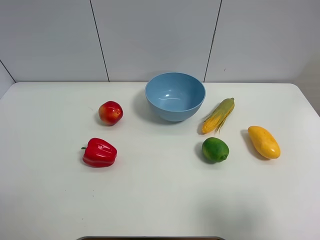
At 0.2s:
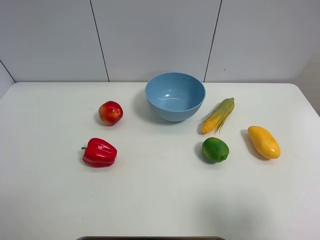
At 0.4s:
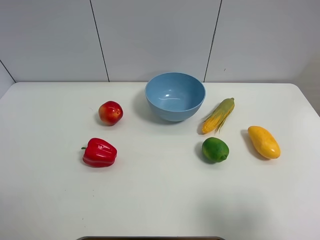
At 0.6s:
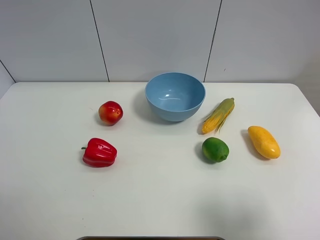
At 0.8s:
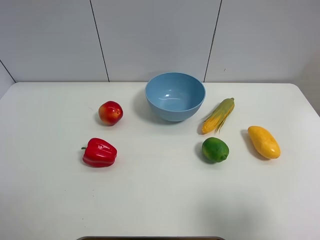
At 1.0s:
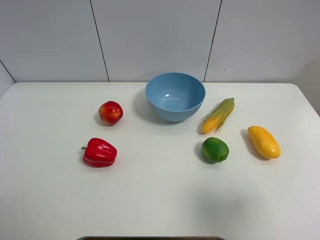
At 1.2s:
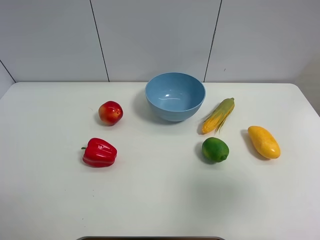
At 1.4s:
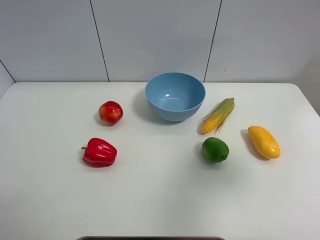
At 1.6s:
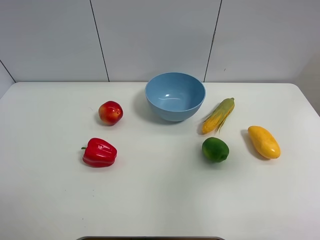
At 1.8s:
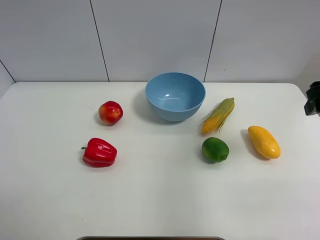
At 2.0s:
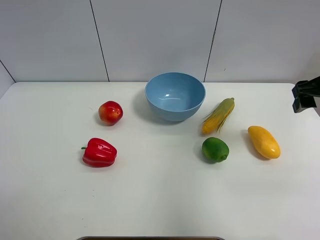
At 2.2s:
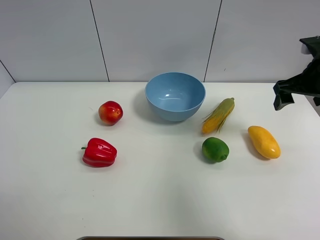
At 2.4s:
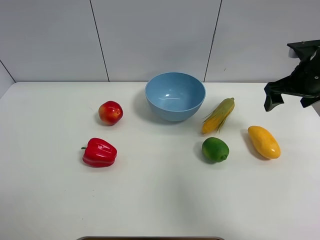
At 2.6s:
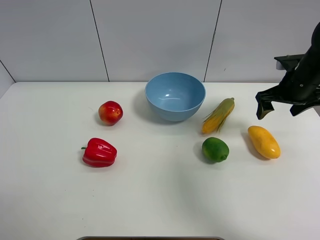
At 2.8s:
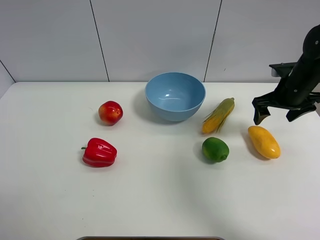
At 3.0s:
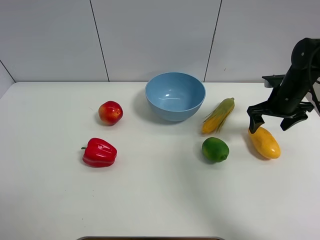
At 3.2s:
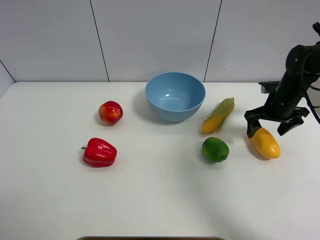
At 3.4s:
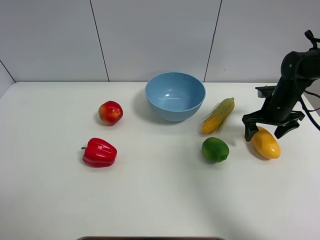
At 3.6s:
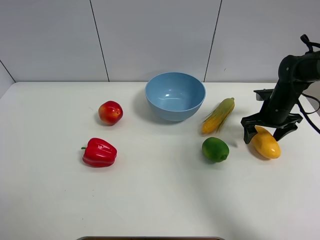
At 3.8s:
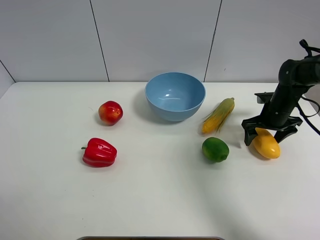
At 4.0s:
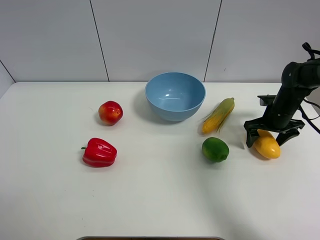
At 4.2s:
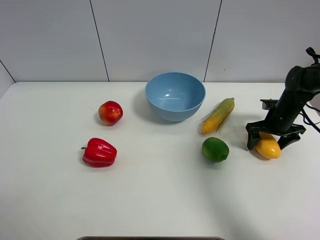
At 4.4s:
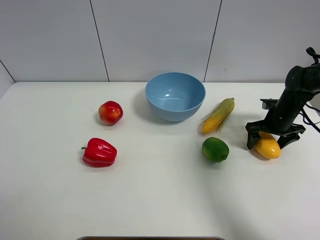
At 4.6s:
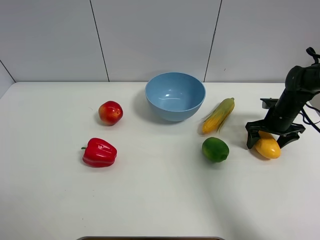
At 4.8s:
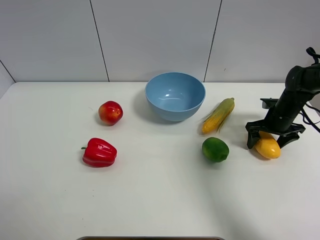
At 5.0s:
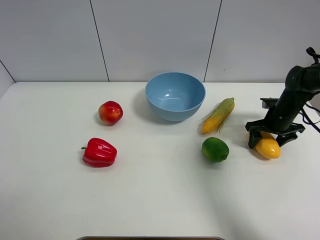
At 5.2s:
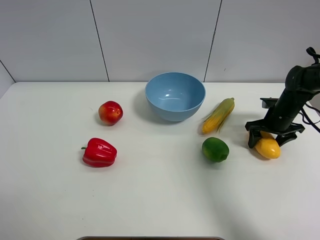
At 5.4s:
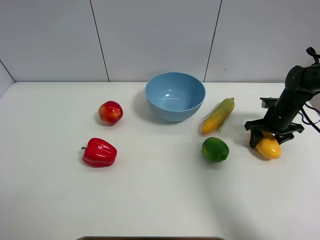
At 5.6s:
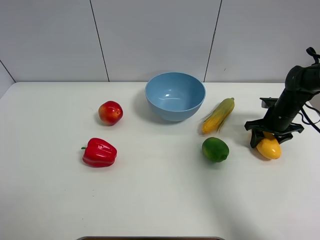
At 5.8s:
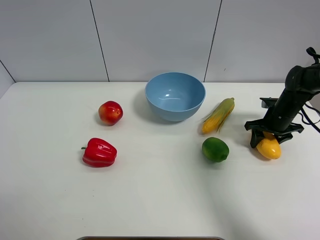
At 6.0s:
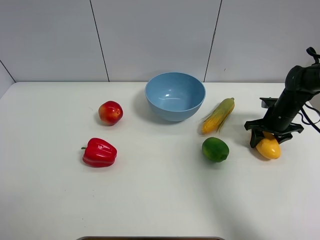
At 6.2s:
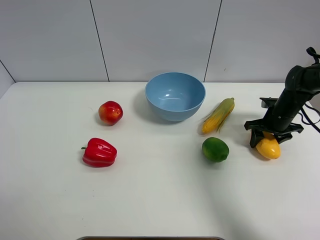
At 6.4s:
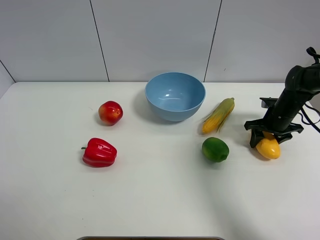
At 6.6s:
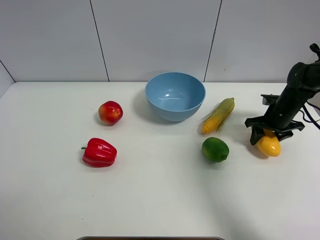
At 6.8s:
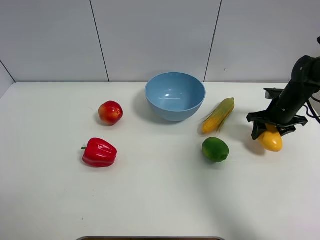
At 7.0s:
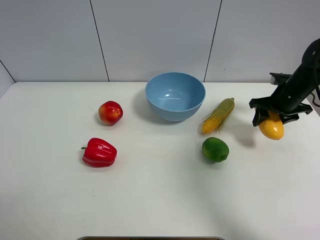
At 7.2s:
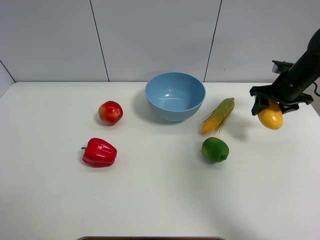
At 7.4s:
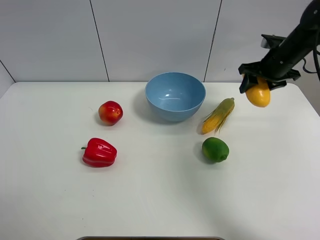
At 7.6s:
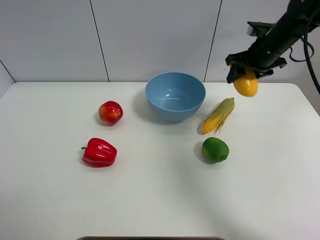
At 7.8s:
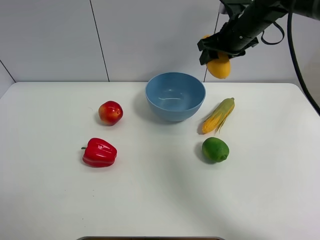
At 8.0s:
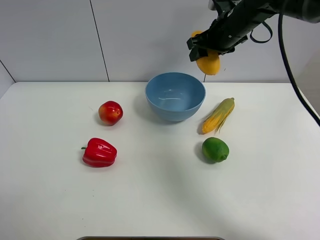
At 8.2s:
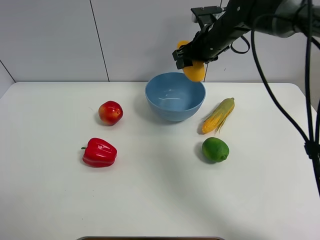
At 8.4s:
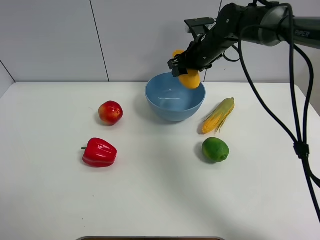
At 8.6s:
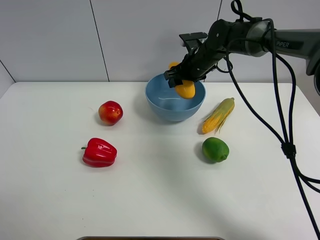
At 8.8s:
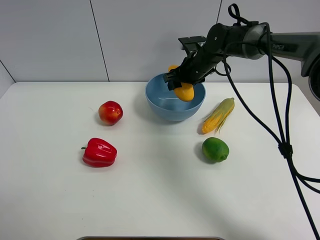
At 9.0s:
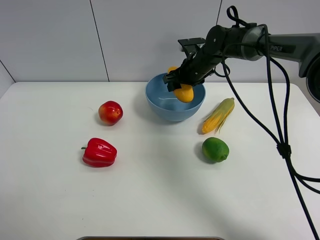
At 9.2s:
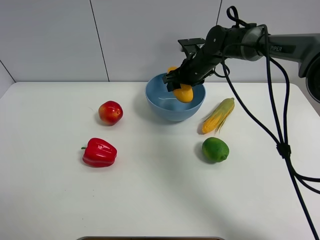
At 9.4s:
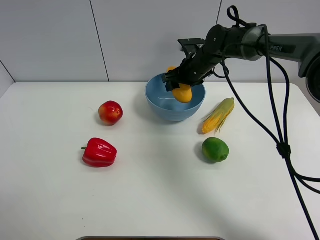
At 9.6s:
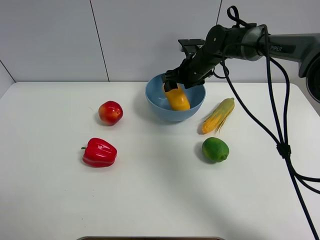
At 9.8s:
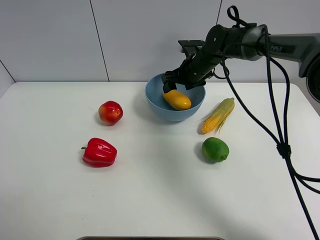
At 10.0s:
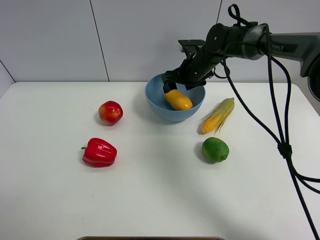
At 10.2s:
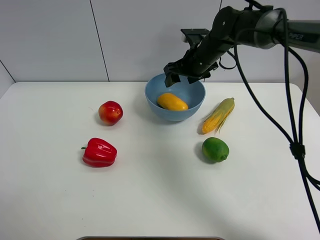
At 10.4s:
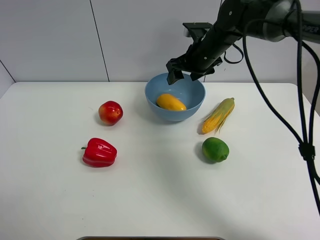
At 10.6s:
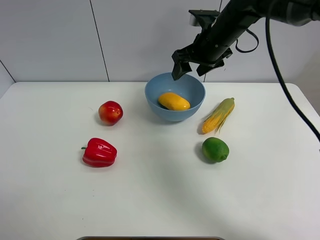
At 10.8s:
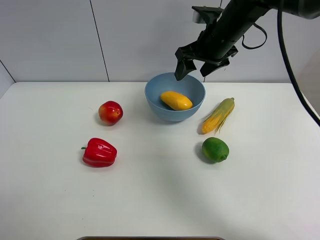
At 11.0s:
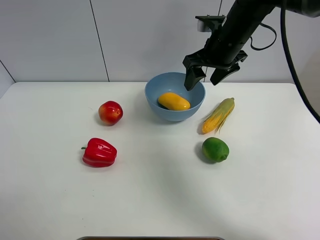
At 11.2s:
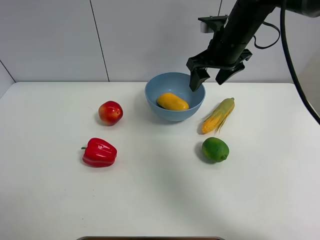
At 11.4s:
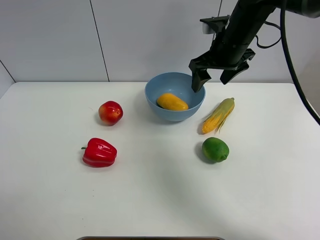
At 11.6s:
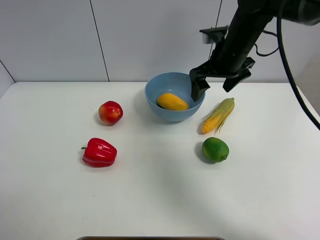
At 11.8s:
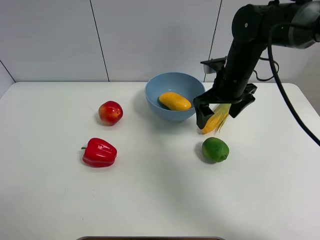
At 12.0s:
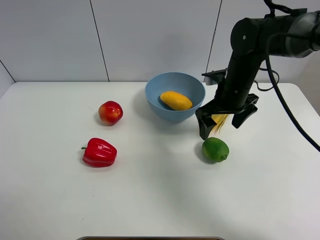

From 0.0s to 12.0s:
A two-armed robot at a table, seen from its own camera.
Task of the whole recording: Put the three fruits on the table into a bowl.
Step, from 0.0s to 5.6s: Grasp the mango with right gripper.
Step, from 5.8s to 9.6s: Place the mango in the blue bowl with right gripper.
From 0.0s to 1.6s: The right gripper heads forward, covering approximately 15 cm.
From 1.6s to 3.0s: The right gripper travels forward and downward by some 25 cm.
From 3.0s to 4.4s: The right gripper is displaced downward by about 5 cm.
From 4.4s to 6.0s: The right gripper closes up.
From 6.0s to 7.6s: The right gripper is displaced upward and to the left by about 20 cm.
From 7.6s to 9.0s: The right gripper is displaced to the left and downward by roughly 15 cm.
From 9.0s to 10.4s: The right gripper moves upward, some 5 cm, and opens its fingers.
From 10.4s to 12.0s: The right gripper is displaced backward by about 10 cm, and opens up.

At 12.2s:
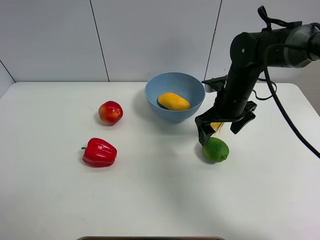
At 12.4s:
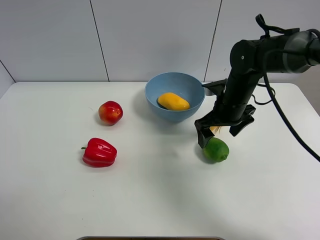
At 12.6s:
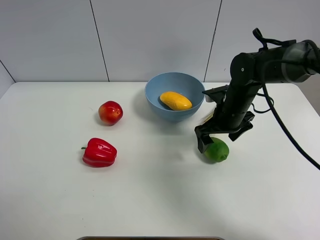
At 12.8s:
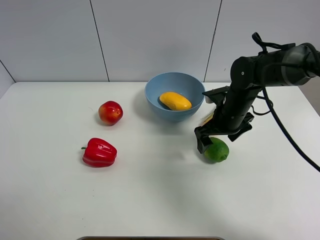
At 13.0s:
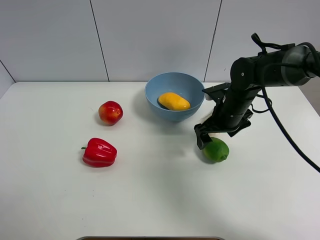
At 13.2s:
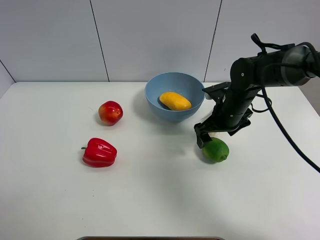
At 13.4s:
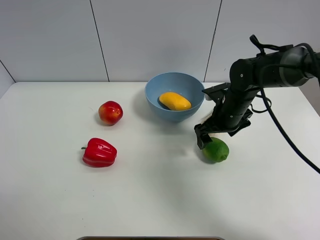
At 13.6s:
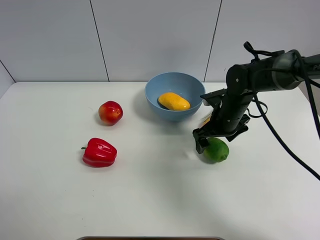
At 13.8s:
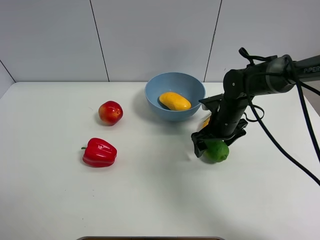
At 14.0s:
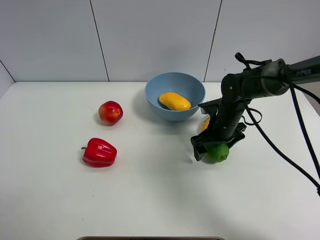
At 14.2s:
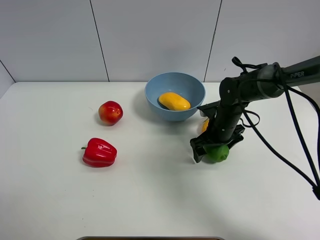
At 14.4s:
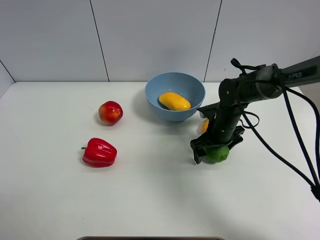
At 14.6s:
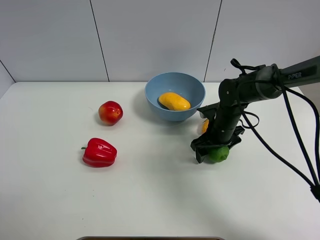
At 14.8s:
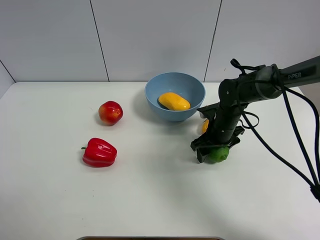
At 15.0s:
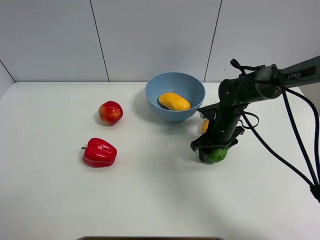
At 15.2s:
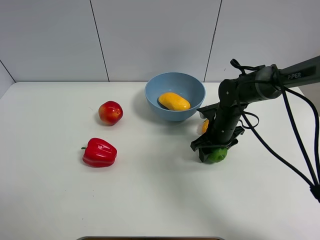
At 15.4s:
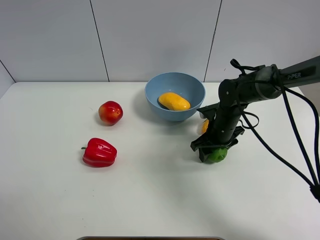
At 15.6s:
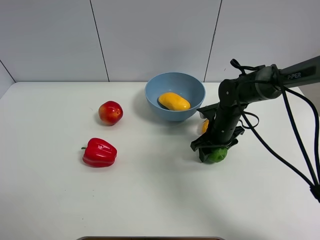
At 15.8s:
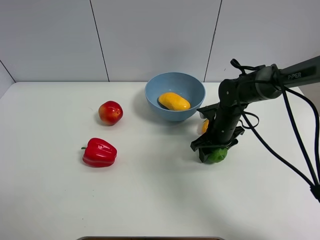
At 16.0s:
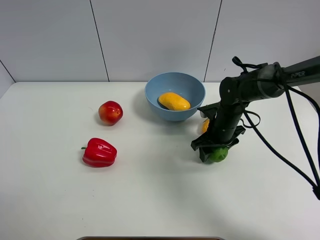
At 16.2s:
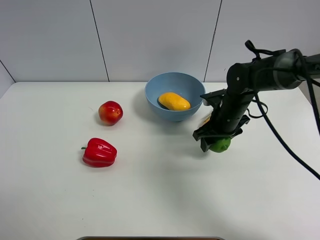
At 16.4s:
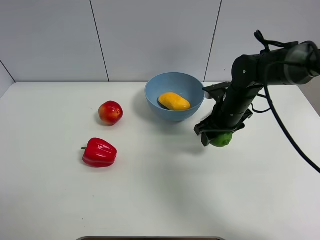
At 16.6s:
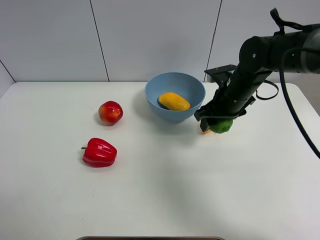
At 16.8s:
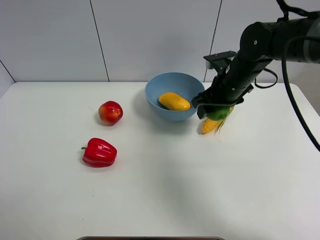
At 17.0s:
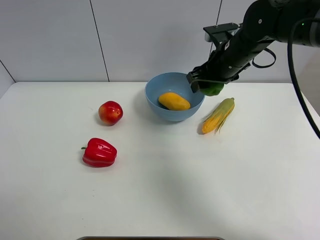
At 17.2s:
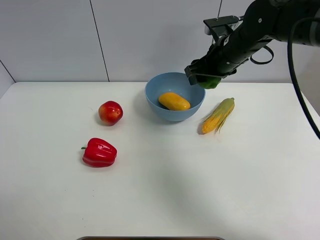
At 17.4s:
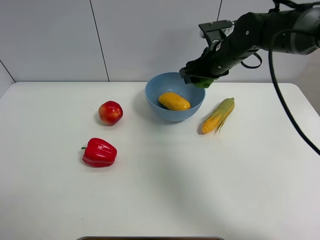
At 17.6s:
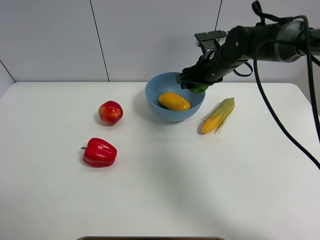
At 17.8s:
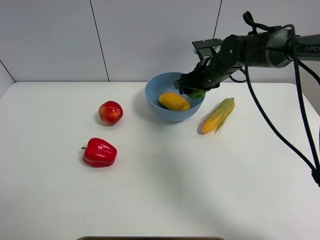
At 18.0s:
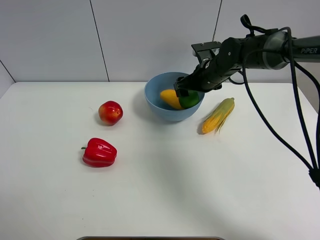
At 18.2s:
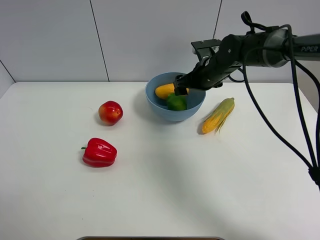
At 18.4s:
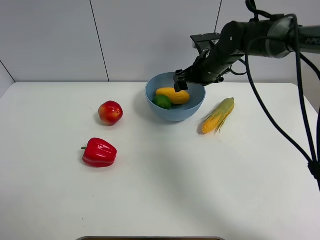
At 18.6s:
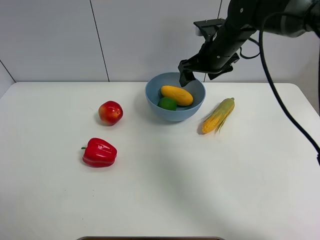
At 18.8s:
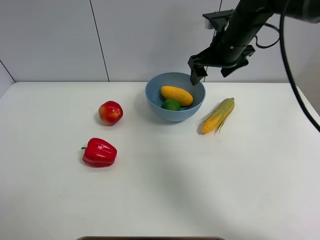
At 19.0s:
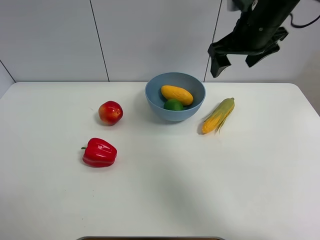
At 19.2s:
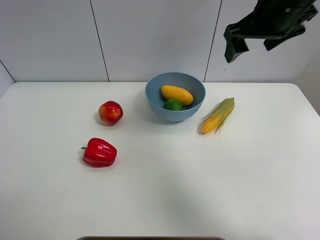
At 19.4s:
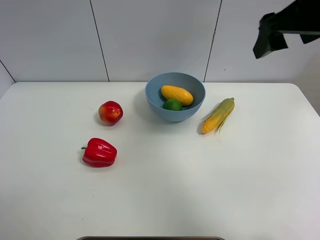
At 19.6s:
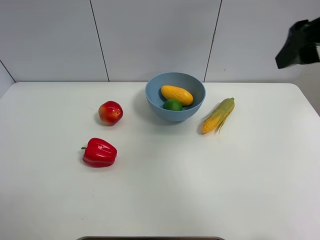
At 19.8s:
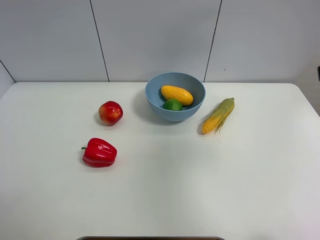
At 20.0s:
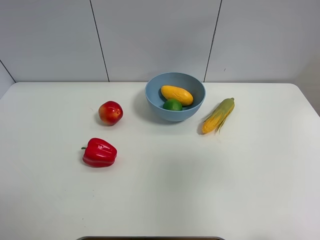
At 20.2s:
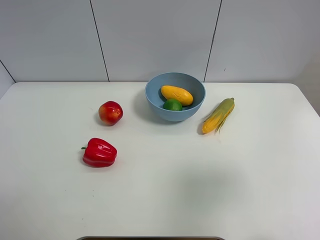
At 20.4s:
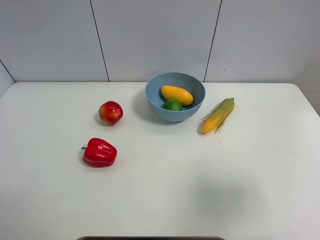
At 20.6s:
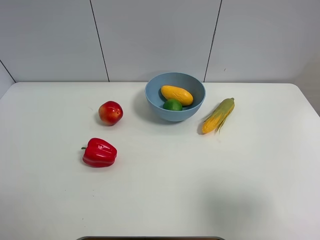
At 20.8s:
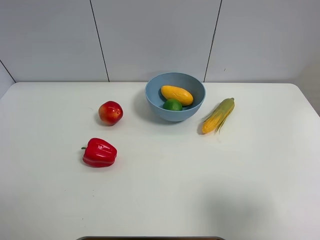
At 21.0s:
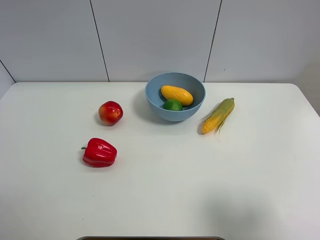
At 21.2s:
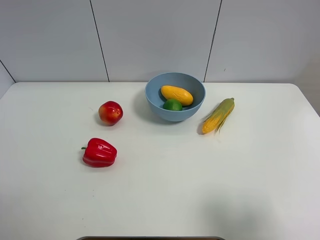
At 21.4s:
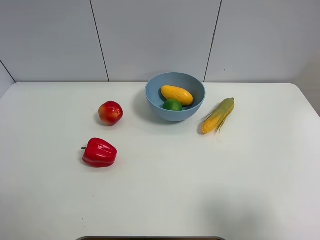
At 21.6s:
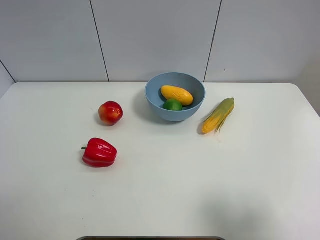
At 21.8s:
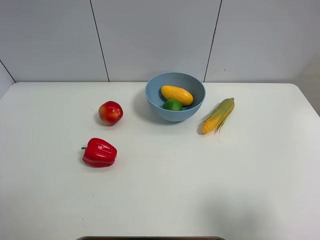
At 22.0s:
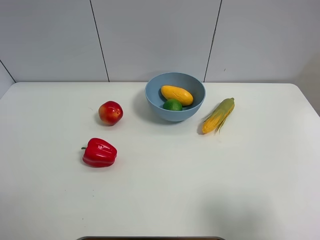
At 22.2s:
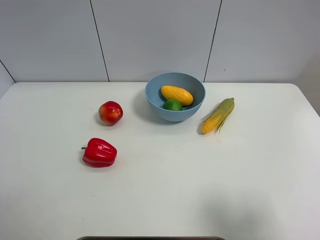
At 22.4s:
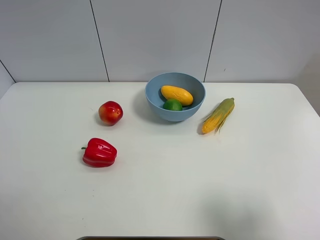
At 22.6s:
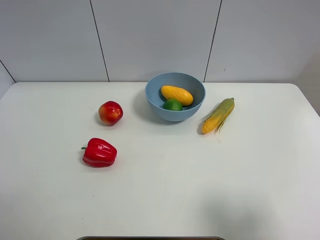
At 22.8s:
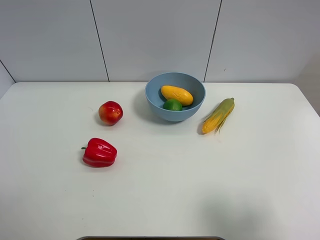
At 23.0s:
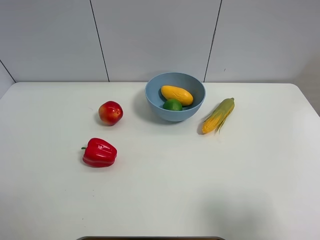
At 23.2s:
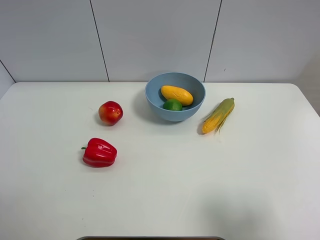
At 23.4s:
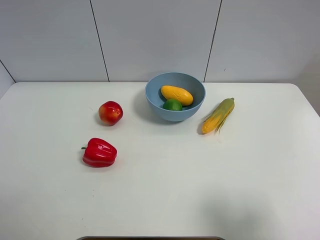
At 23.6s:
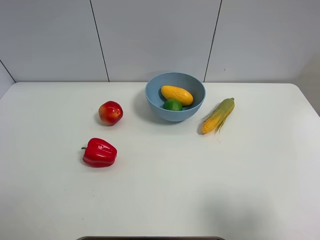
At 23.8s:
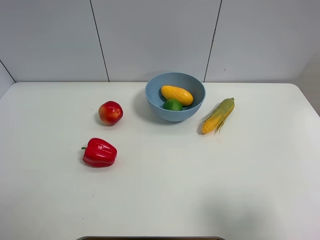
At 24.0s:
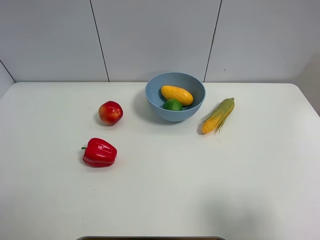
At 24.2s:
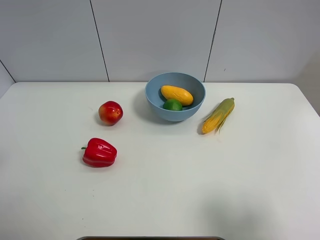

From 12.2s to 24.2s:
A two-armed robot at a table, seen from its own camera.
Task of the whole recording: Put the three fruits on the table into a bowl.
Step, from 12.2s to 15.0s: Grasp the green lemon with right gripper.
Step, from 15.2s to 18.4s: Place the green lemon in the blue bowl with right gripper.
From 12.2s to 13.8s: The right gripper moves downward, about 5 cm.
From 13.8s to 15.2s: The right gripper closes its fingers.
From 15.2s to 16.6s: The right gripper is displaced upward by some 10 cm.
From 16.6s to 18.2s: The right gripper goes roughly 10 cm forward, and opens.
From 18.2s to 19.8s: The right gripper is displaced backward, upward and to the right by some 40 cm.
From 19.8s to 21.2s: The right gripper travels backward and downward by roughly 20 cm.
From 21.2s to 22.6s: Both grippers stay about where they are.
